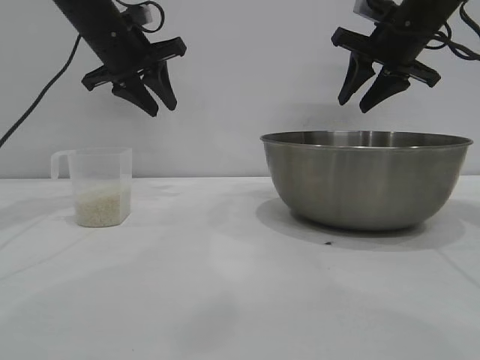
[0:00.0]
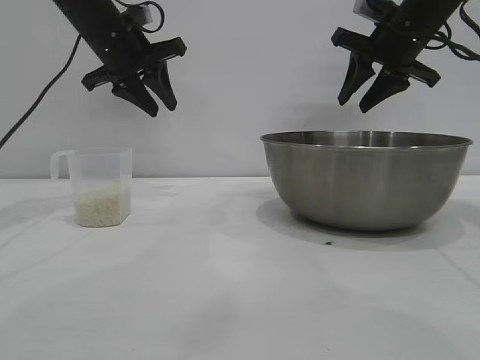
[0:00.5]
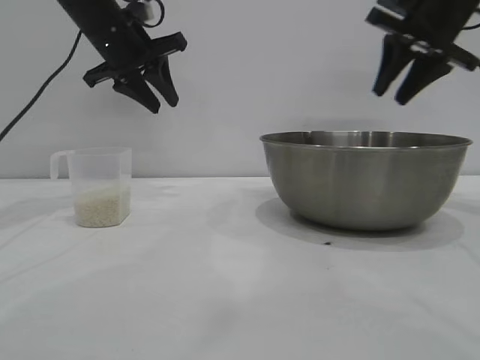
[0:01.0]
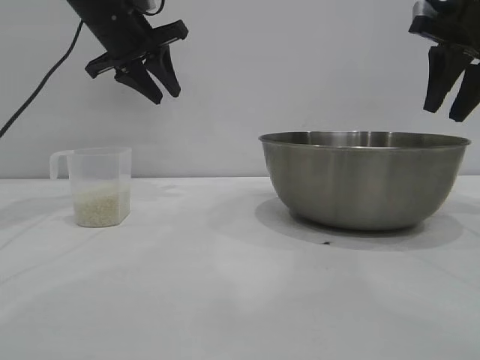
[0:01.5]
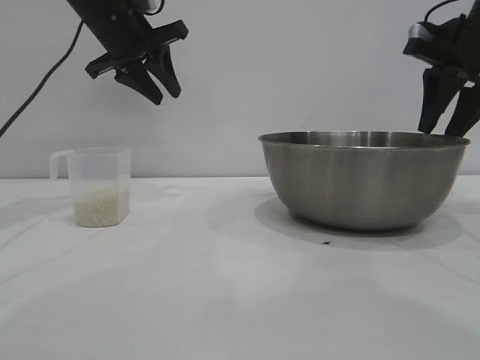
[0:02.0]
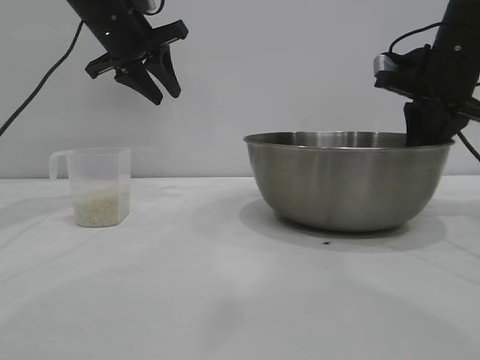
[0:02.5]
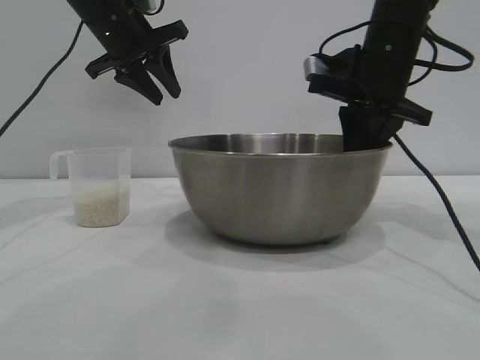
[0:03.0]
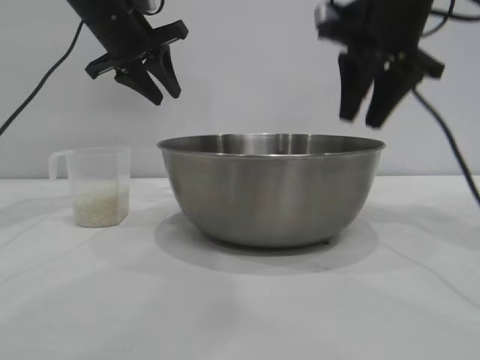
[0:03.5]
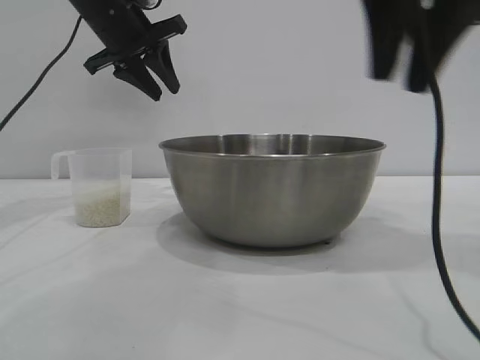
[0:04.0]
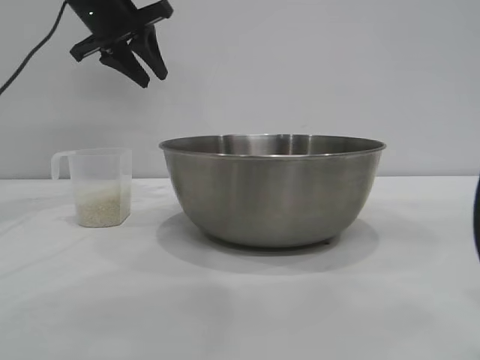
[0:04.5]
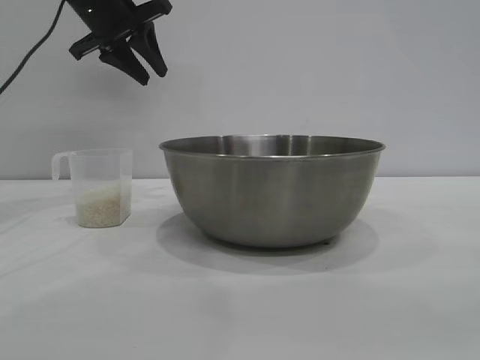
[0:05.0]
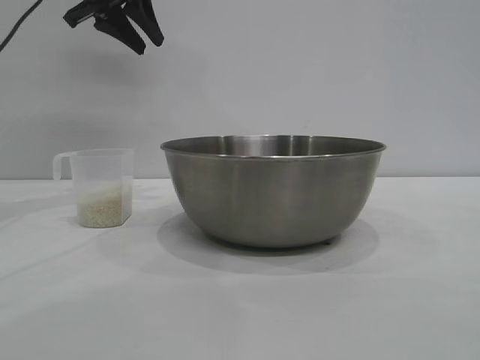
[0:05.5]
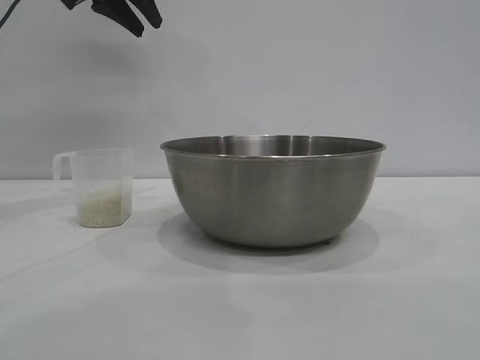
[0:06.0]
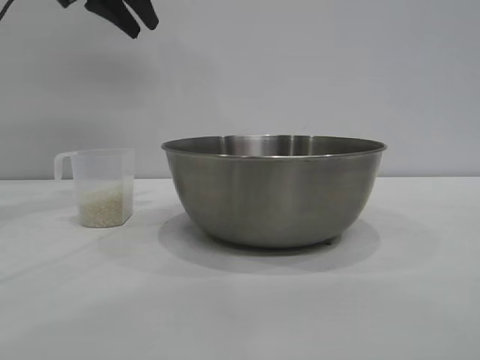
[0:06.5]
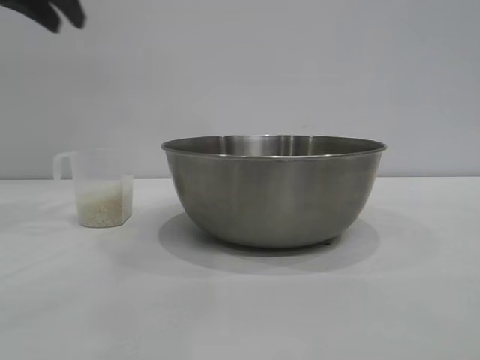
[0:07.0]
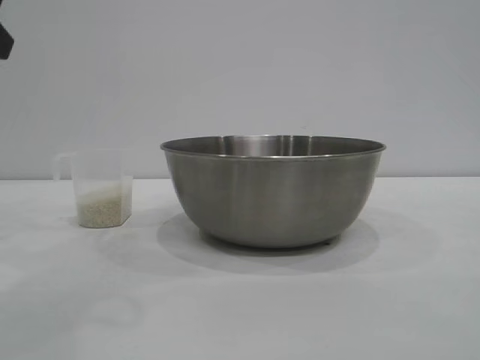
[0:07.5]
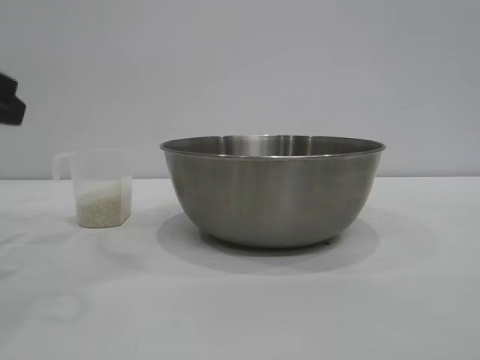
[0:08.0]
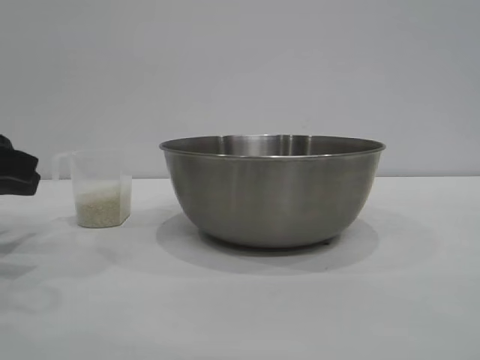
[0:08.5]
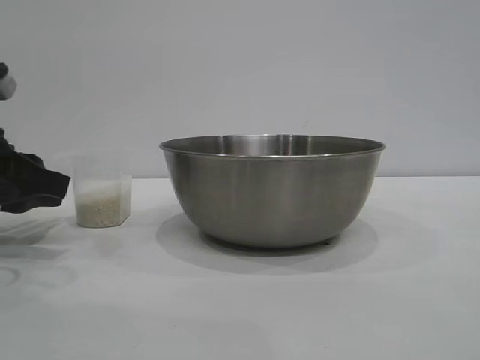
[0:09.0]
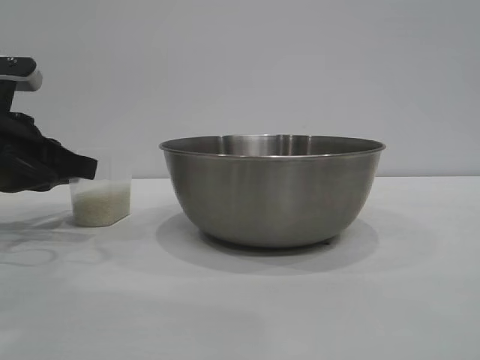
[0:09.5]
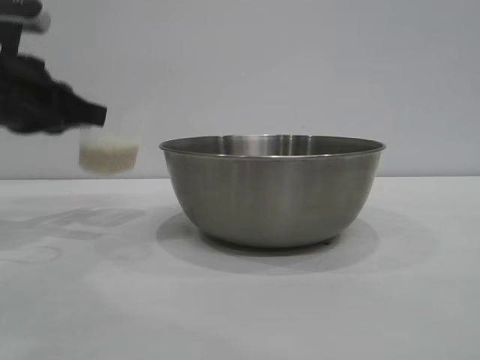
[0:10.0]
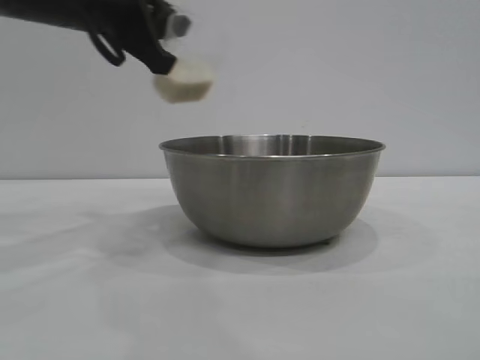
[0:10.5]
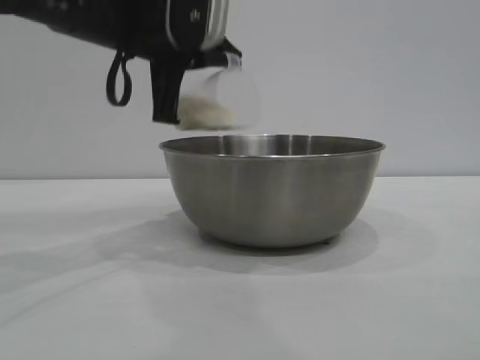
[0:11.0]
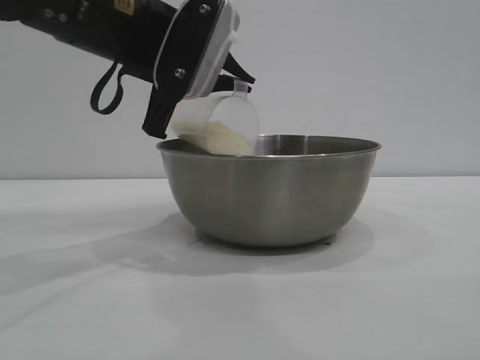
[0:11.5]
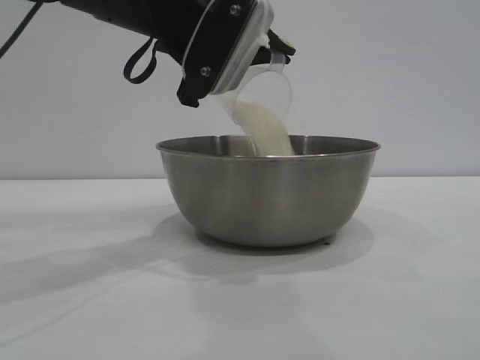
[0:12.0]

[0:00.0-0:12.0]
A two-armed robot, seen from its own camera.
Task of the whole recording: the right gripper grasp the rice container and place it in the center of the table, the left gripper grasp the rice scoop and pour the rice into the rice container.
Step, 0:00.0 to 0:03.0: Move the bowl to the center of view with the right gripper.
Step, 0:03.5 to 0:09.5: Pick up the cup with rice in it with the left gripper.

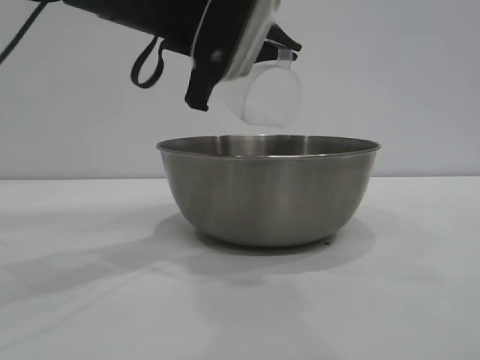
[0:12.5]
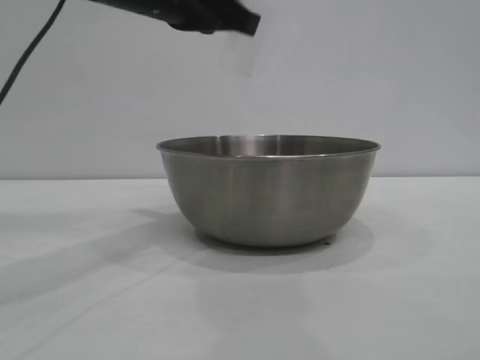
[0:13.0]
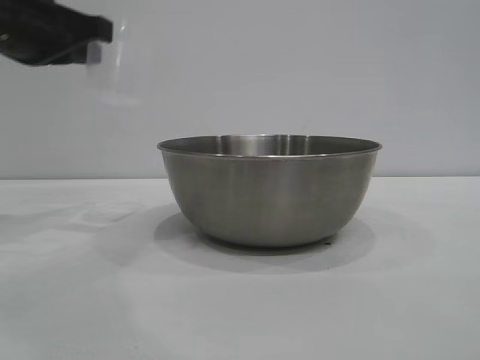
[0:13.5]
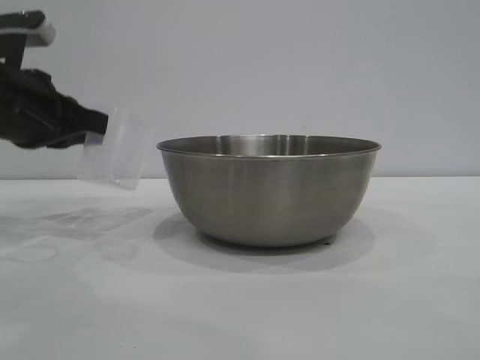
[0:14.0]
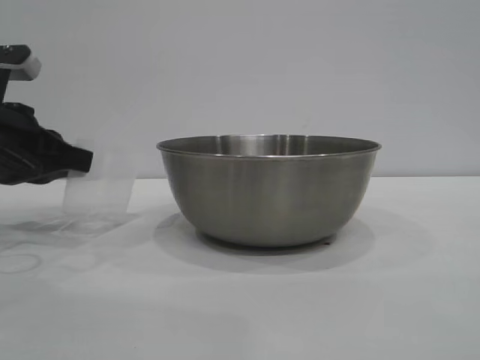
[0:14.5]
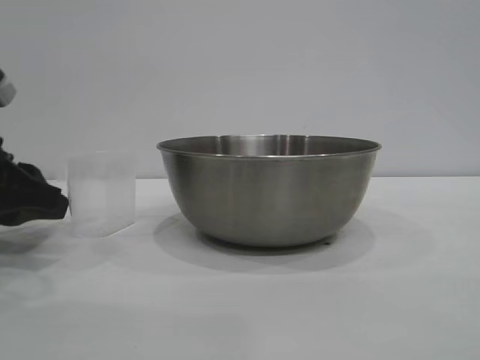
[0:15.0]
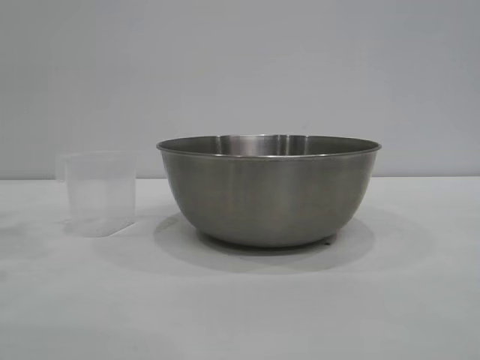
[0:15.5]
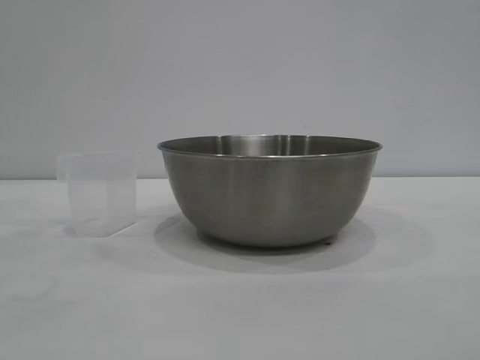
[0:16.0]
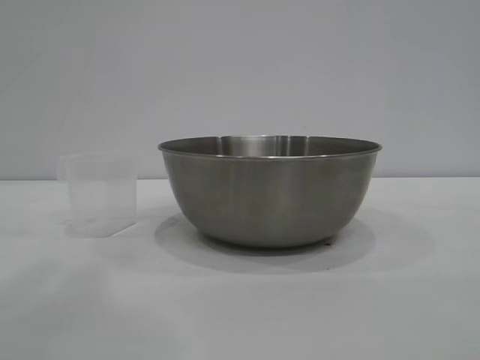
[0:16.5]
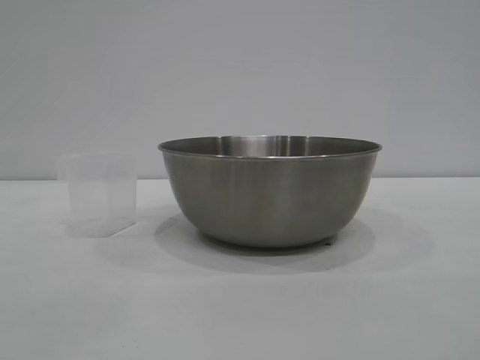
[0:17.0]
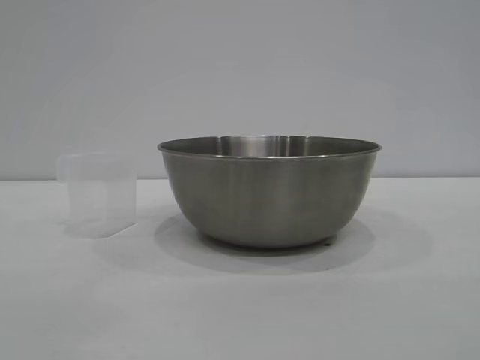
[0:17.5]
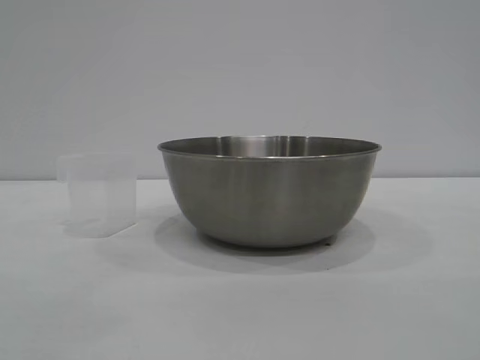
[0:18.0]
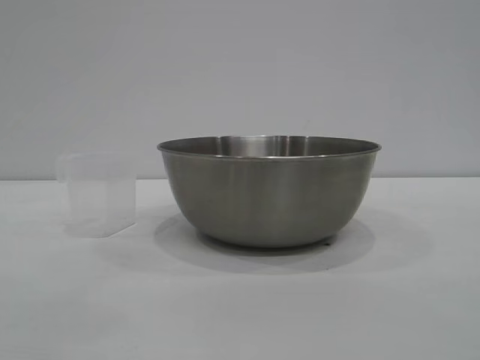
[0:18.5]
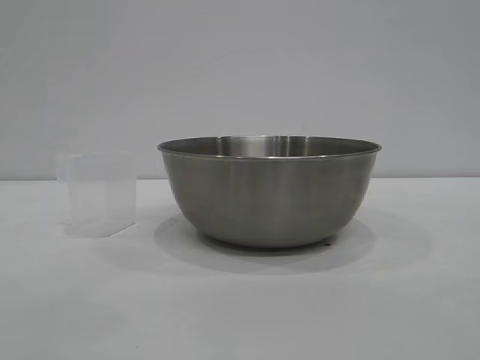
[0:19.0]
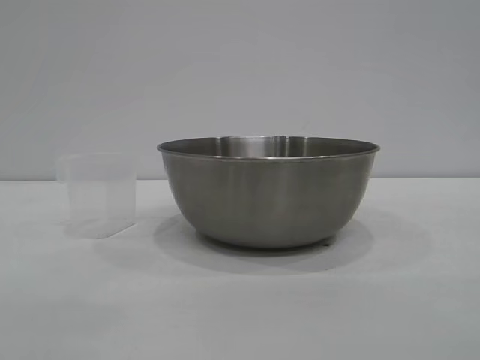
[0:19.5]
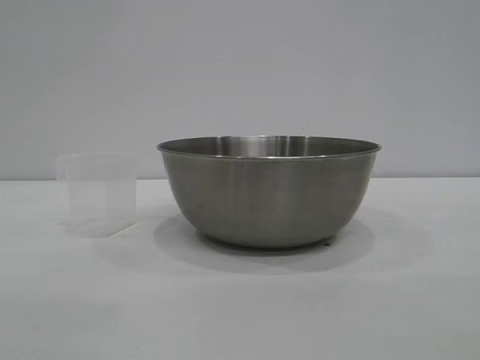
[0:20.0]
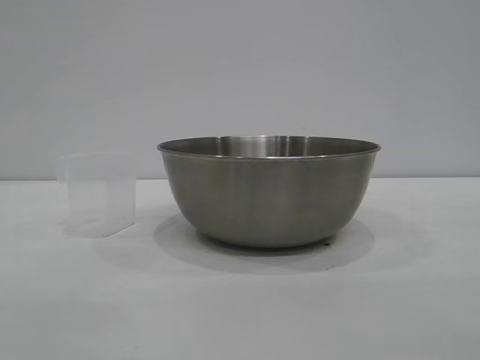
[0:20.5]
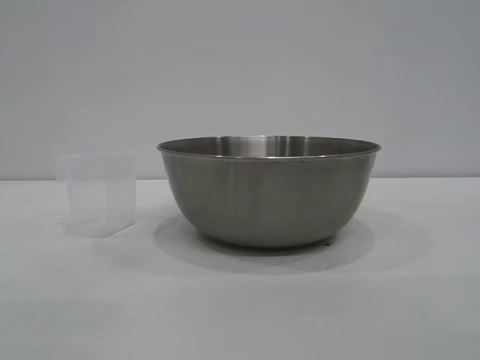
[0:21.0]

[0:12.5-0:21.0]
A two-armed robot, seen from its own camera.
Task of the whole recording: the right gripper grasp the rice container and place it in the center of the table, the left gripper grasp the rice scoop and pour the rice into the rice container.
Step, 0:13.0 to 0:15.0: Place the cup on the table with the left gripper.

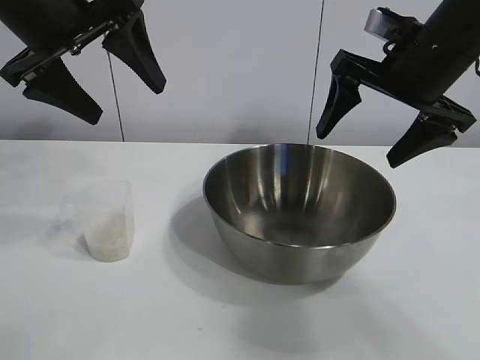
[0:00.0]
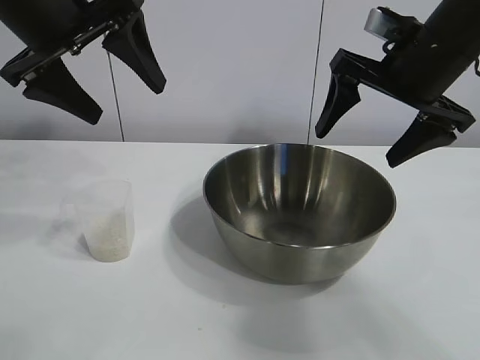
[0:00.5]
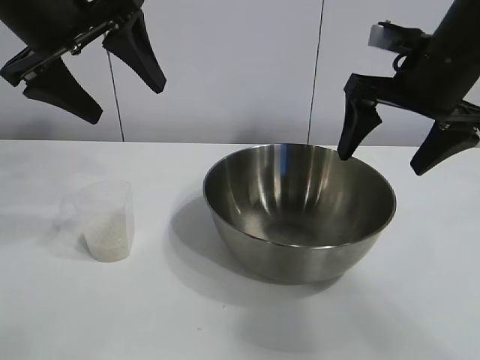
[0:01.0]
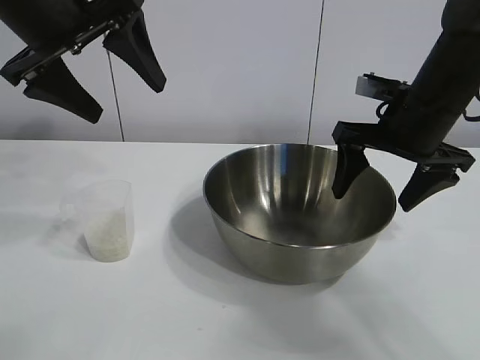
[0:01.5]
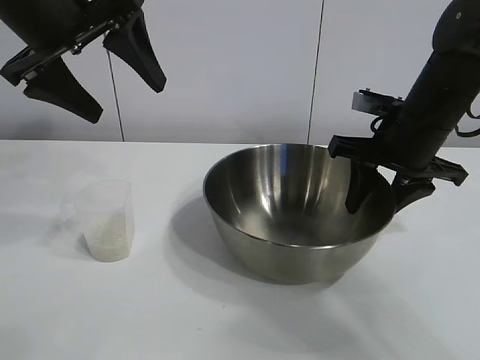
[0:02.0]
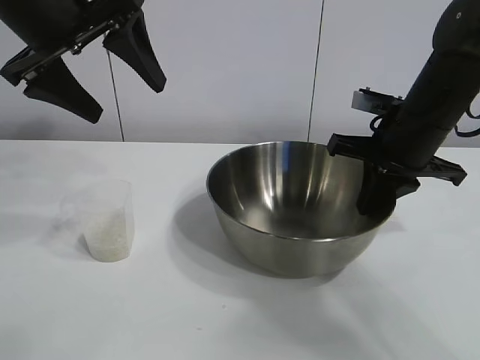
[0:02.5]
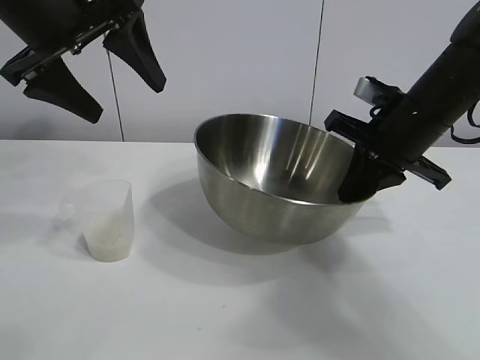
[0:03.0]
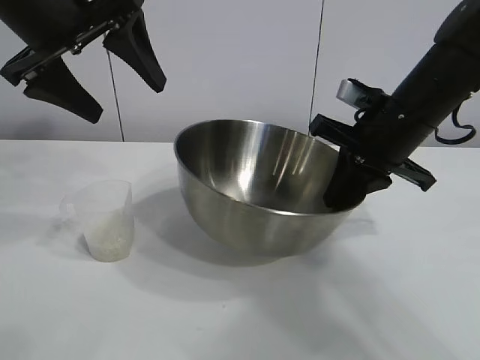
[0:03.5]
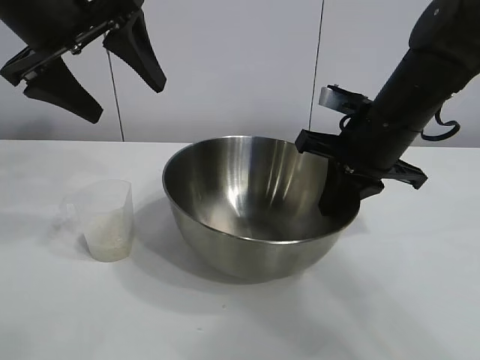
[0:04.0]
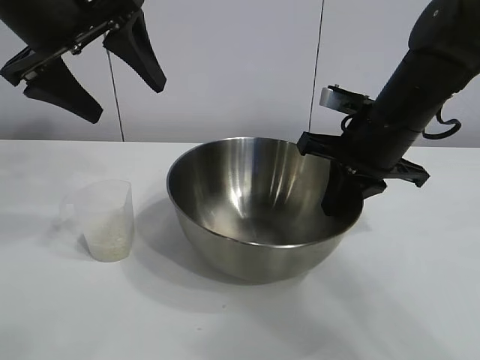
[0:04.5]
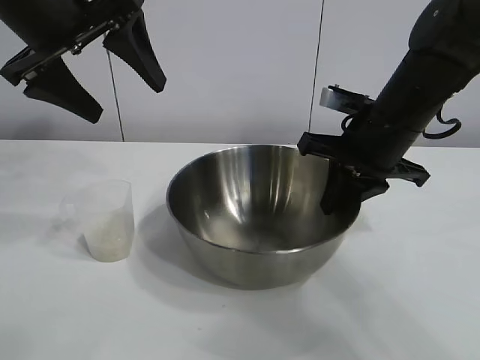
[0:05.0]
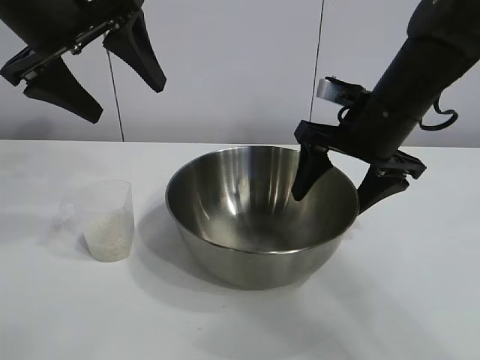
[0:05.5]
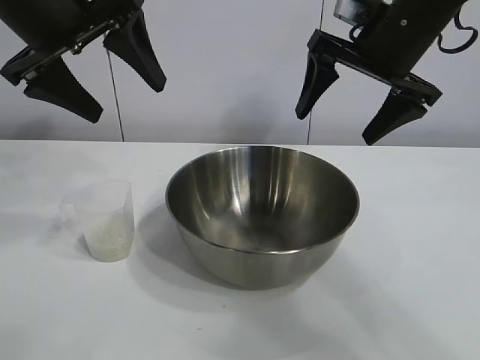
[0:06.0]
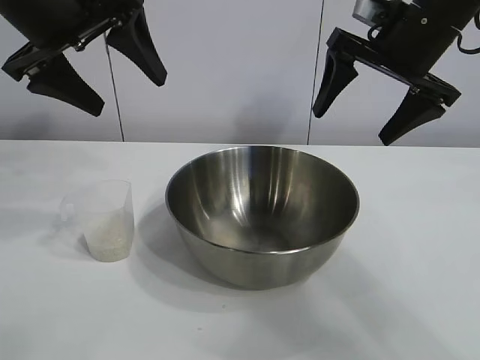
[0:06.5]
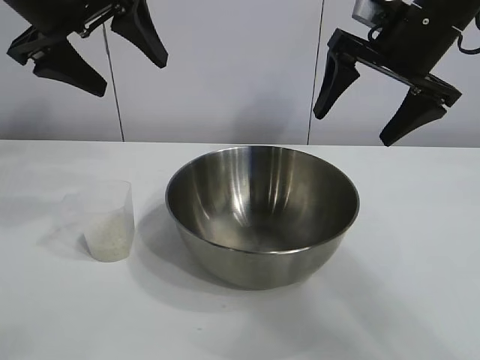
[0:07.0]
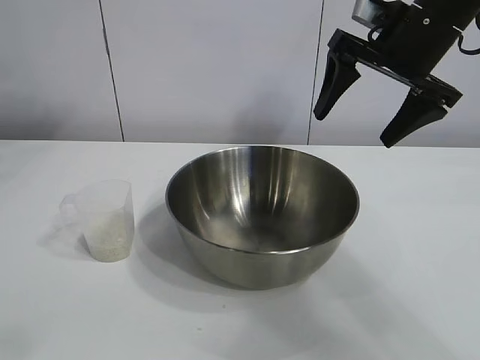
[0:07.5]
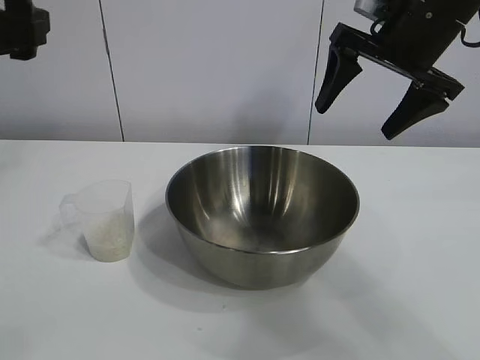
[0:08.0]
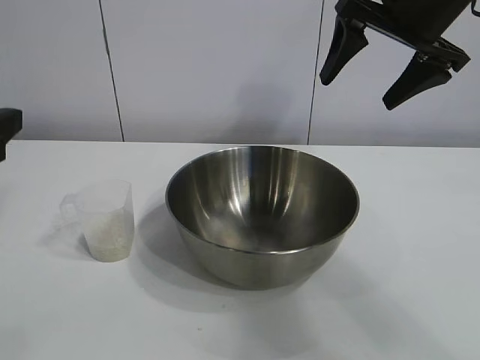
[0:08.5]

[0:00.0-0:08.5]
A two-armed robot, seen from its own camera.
Task of the whole recording: the right gripper grasp the rice container and place it in the center of the table, the left gripper grasp the rice scoop and pour the rice into the rice container.
Step, 0:00.5 to 0:05.0: Move the bowl in the center of view with right gripper.
